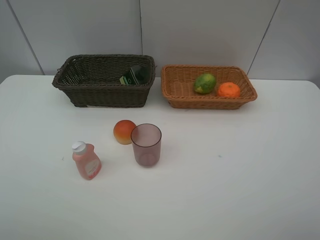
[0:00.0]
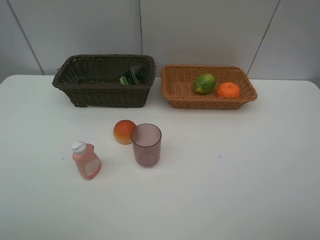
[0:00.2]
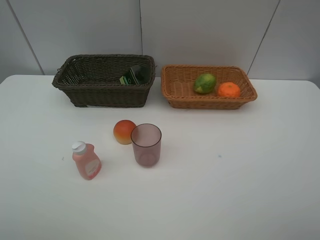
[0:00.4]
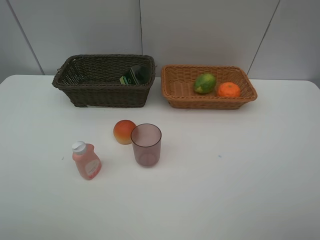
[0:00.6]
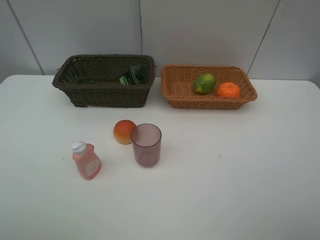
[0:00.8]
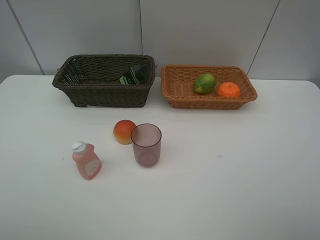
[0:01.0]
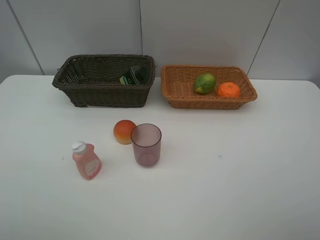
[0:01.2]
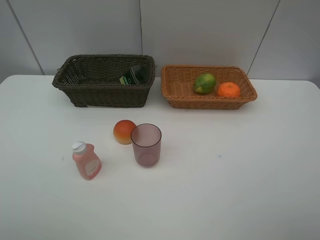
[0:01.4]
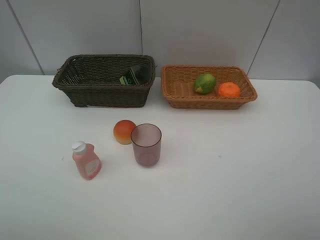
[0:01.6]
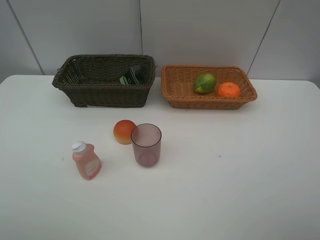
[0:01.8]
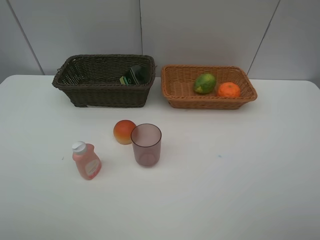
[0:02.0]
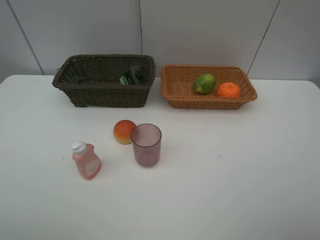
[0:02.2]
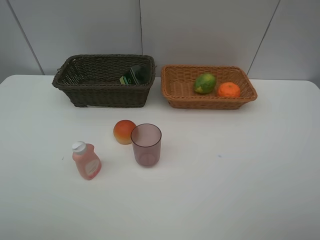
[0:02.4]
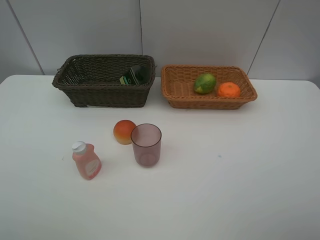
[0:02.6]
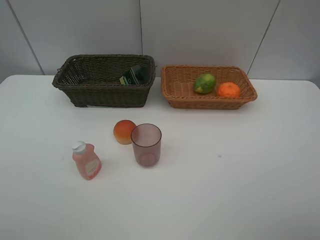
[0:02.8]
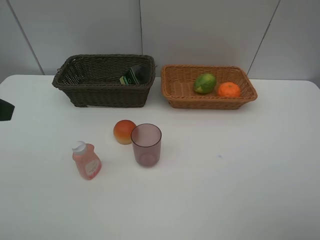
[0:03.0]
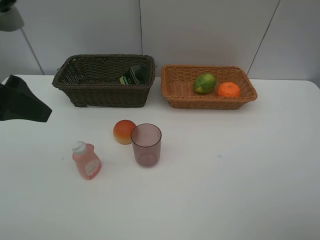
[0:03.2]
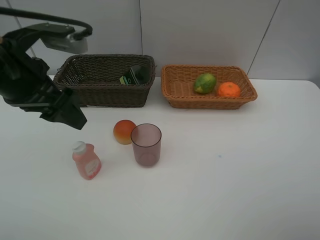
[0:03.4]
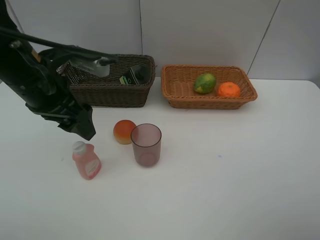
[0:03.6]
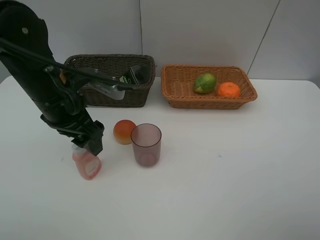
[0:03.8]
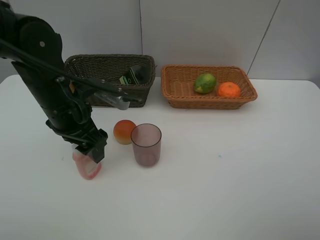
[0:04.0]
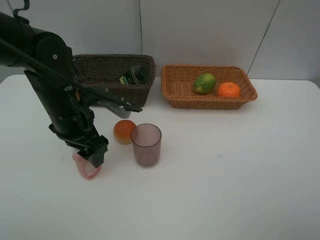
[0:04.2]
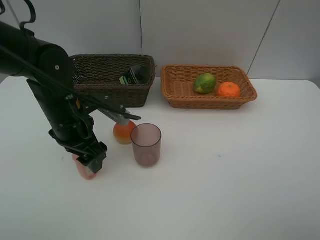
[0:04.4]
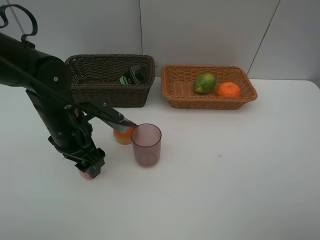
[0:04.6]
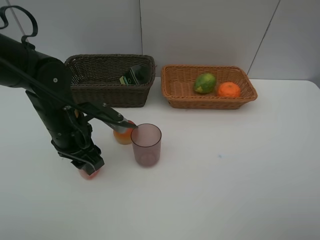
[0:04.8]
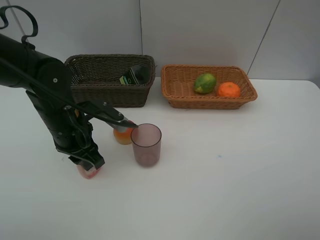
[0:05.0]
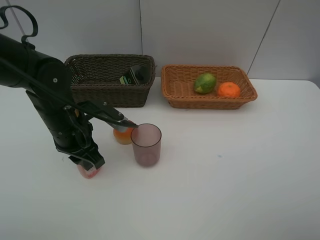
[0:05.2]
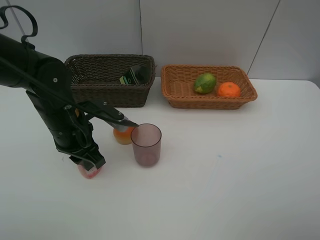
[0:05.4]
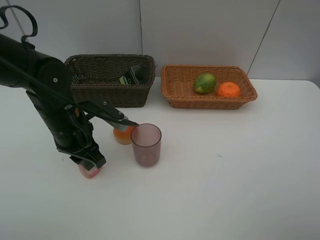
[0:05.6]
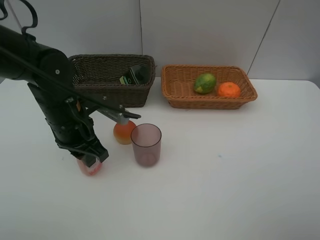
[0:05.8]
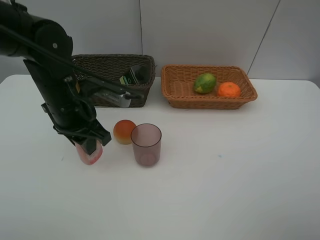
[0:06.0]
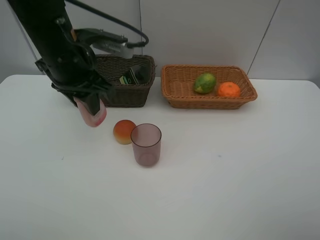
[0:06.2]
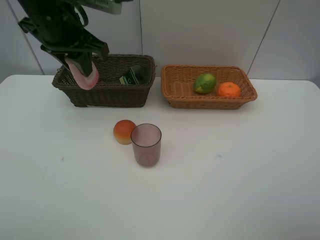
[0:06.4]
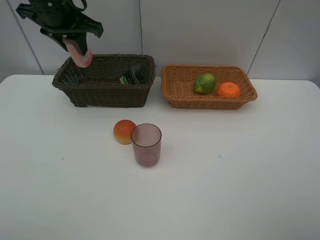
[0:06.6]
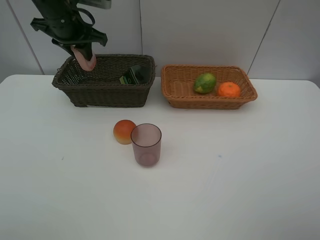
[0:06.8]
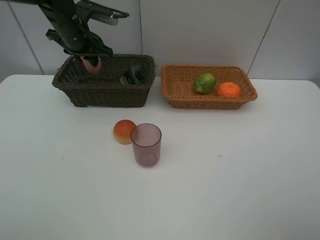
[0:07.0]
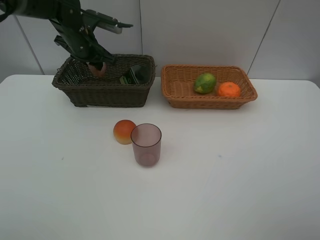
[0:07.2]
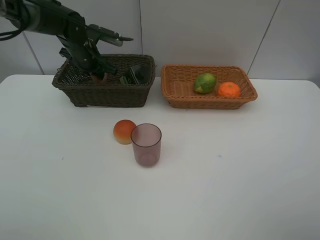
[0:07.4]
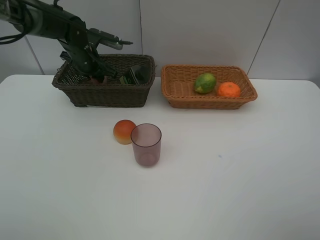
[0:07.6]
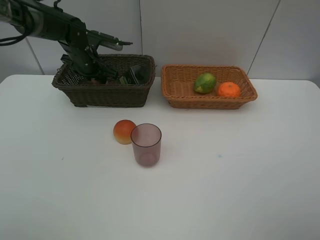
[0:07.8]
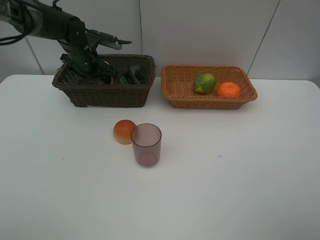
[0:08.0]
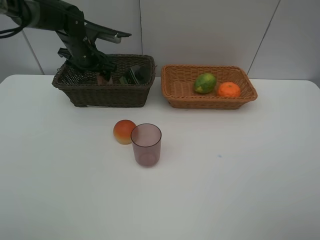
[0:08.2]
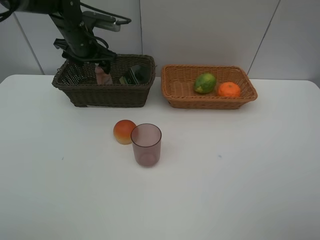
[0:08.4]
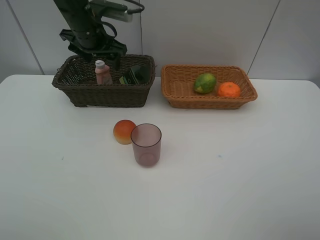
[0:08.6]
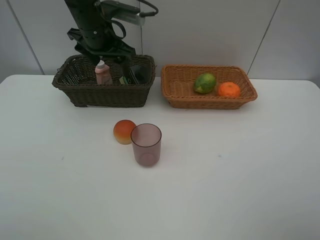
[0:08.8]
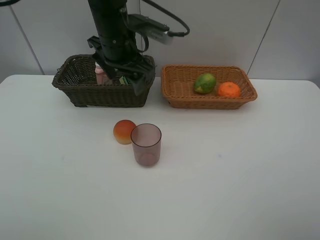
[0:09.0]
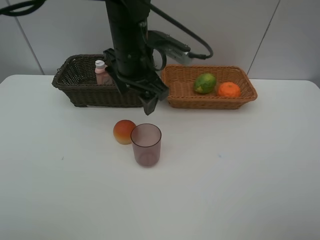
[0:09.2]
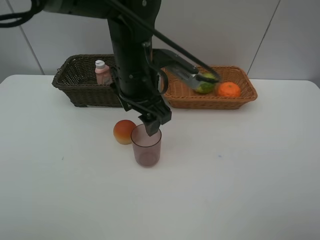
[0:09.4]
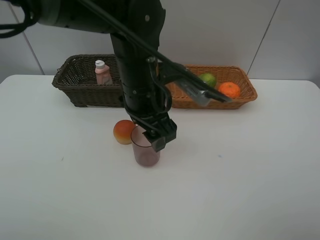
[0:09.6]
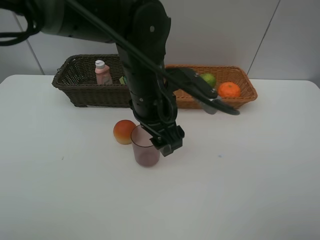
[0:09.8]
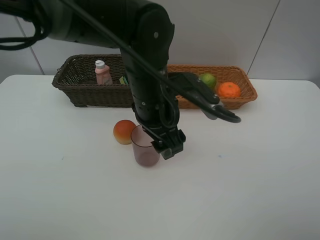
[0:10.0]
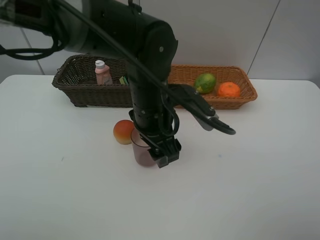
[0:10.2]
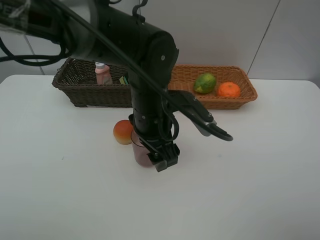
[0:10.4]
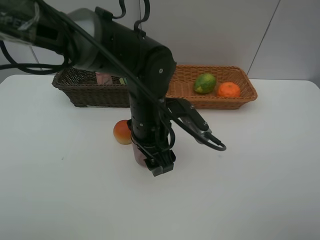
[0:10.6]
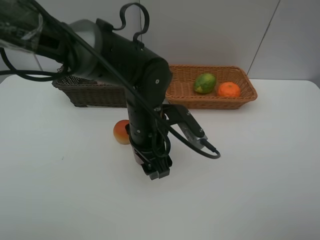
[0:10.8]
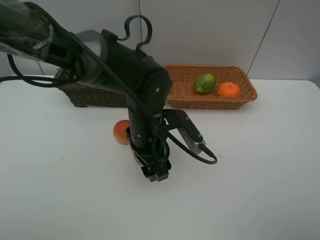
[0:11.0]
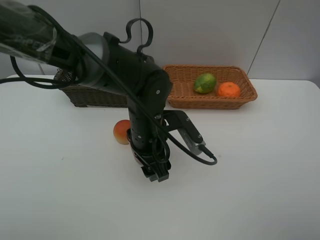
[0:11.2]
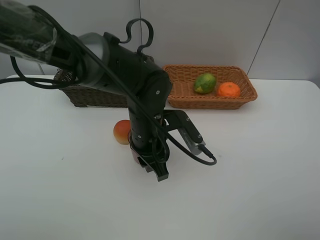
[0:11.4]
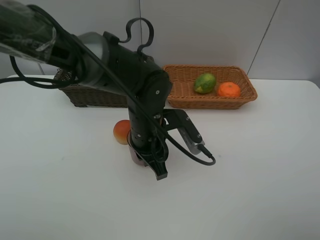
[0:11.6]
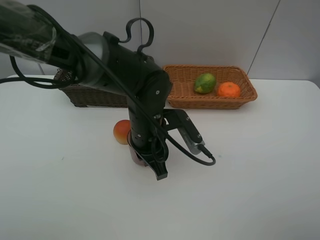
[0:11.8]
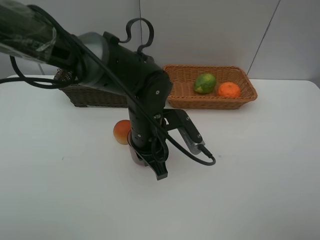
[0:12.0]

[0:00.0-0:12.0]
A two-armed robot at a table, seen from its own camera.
Task of the whole recording: place multiple objects separately in different baskets.
0:03.0 to 0:04.4: The left gripper moves downward, to the right and forward, about 25 cm.
0:04.4 to 0:06.0: The left gripper closes up.
0:06.0 to 0:07.6: The left gripper travels forward by some 20 cm.
0:07.6 to 0:09.0: The left gripper heads to the right, backward and upward, covering approximately 20 cm, and opens.
0:09.0 to 0:10.4: The left gripper goes approximately 15 cm backward, downward and to the right.
0:10.4 to 0:12.0: The left gripper closes.

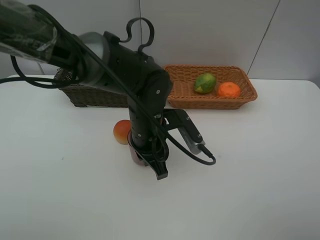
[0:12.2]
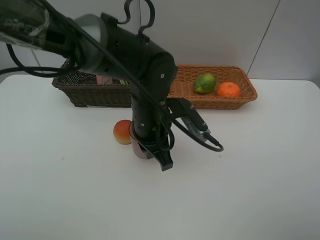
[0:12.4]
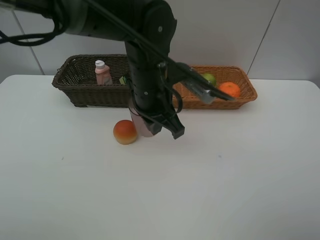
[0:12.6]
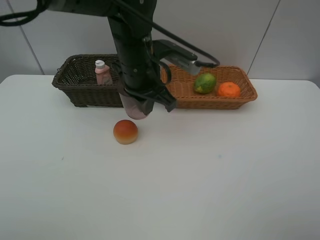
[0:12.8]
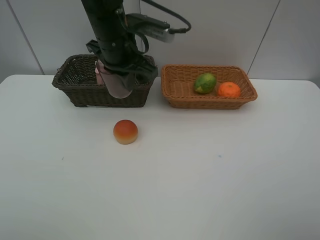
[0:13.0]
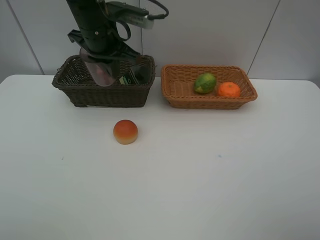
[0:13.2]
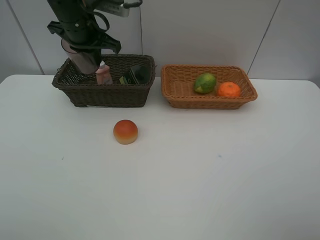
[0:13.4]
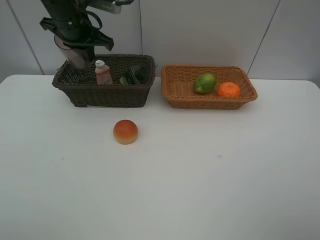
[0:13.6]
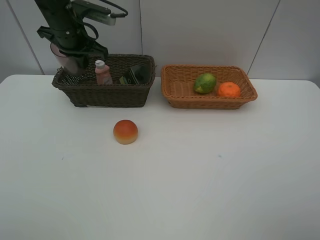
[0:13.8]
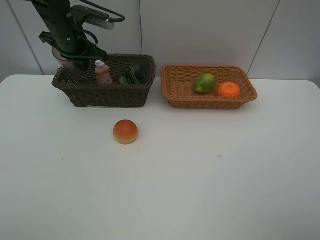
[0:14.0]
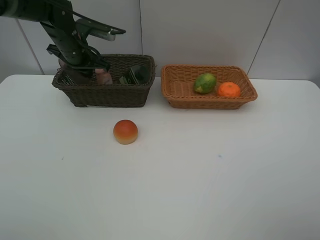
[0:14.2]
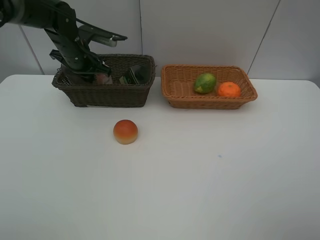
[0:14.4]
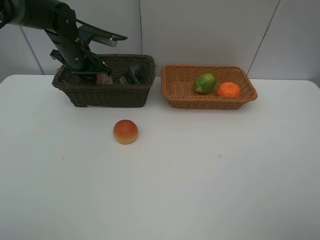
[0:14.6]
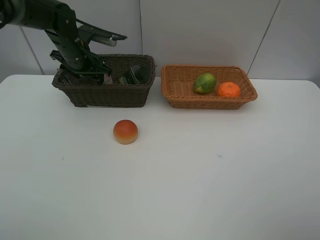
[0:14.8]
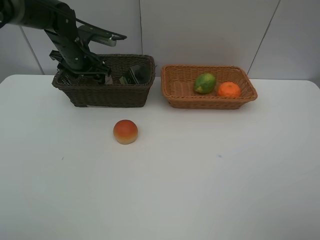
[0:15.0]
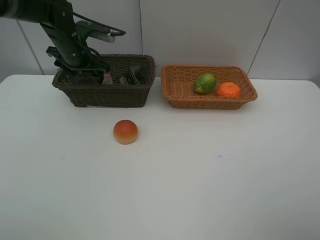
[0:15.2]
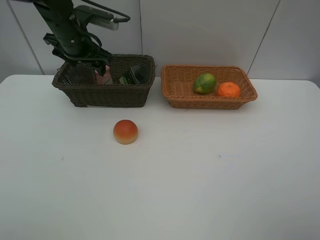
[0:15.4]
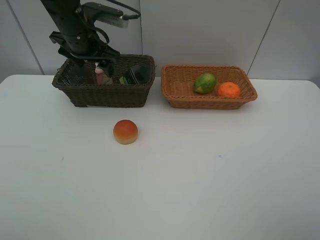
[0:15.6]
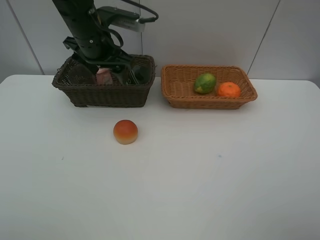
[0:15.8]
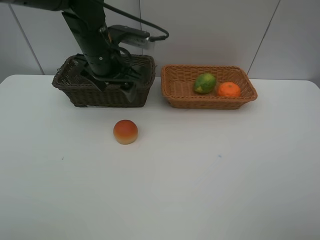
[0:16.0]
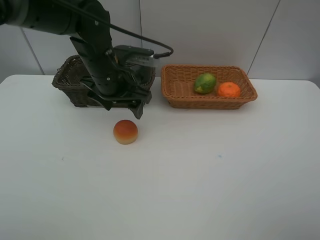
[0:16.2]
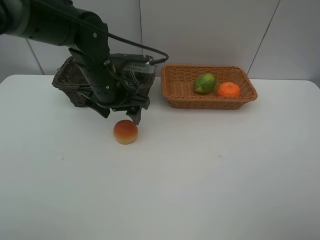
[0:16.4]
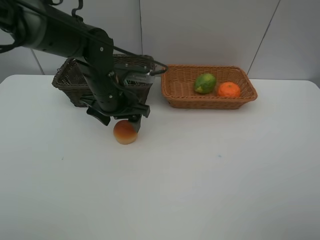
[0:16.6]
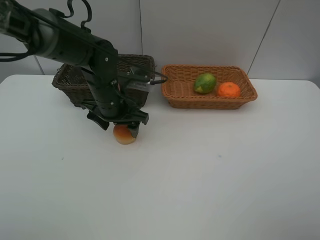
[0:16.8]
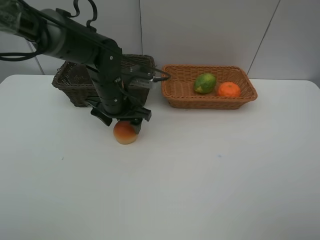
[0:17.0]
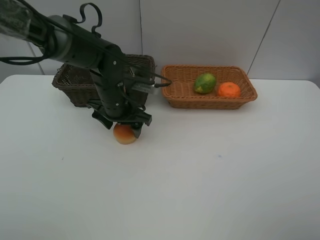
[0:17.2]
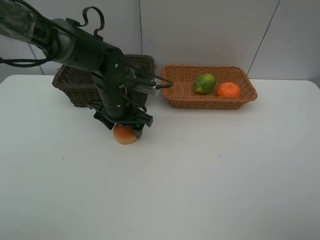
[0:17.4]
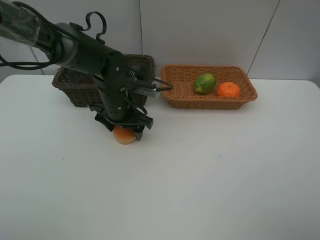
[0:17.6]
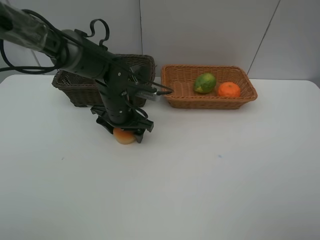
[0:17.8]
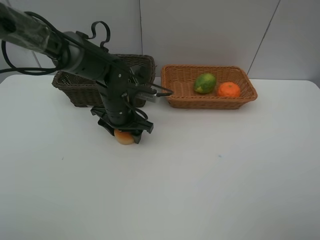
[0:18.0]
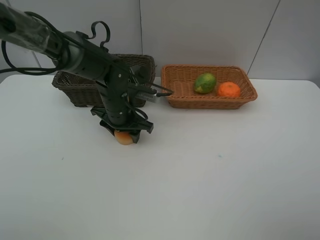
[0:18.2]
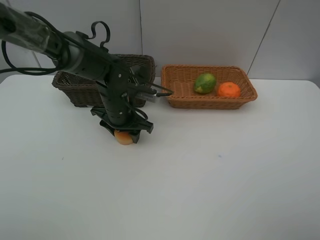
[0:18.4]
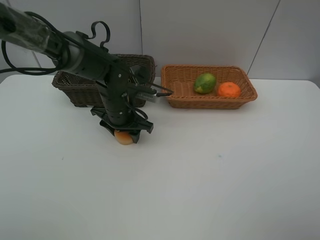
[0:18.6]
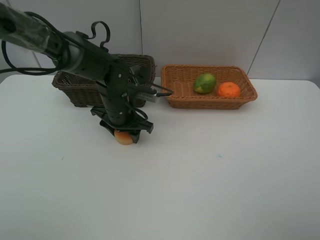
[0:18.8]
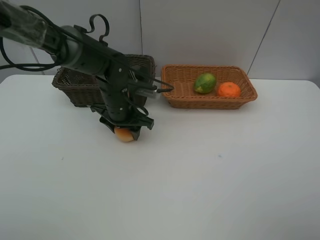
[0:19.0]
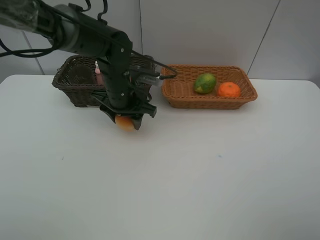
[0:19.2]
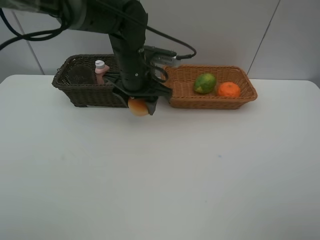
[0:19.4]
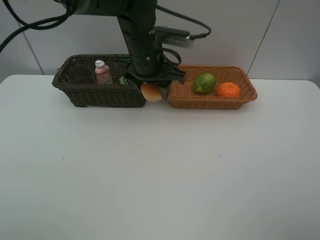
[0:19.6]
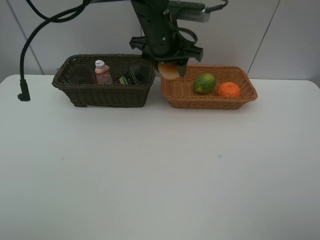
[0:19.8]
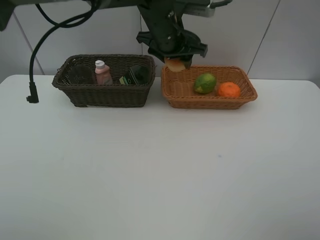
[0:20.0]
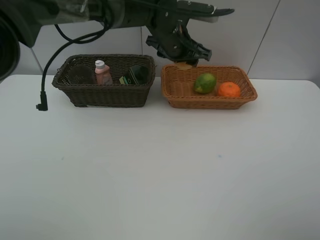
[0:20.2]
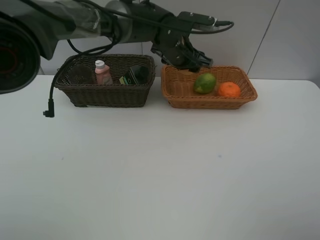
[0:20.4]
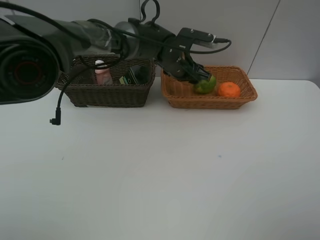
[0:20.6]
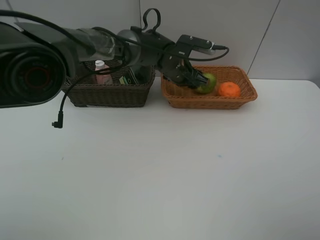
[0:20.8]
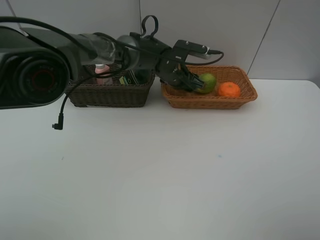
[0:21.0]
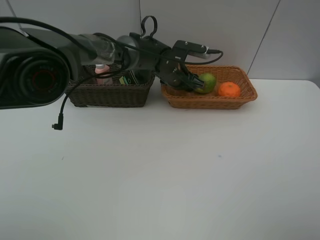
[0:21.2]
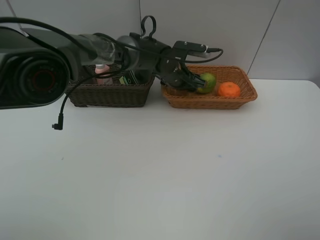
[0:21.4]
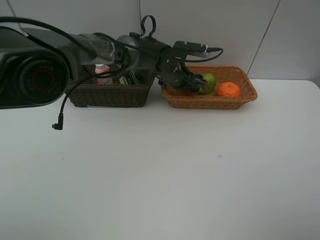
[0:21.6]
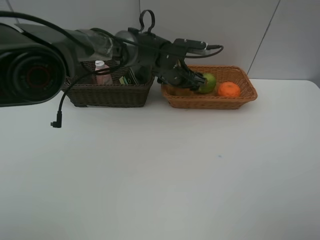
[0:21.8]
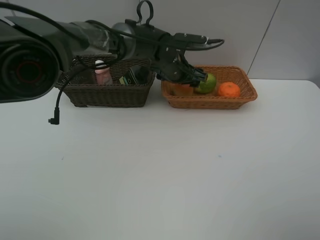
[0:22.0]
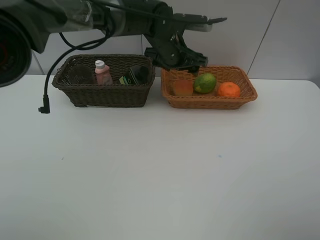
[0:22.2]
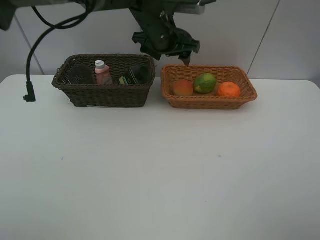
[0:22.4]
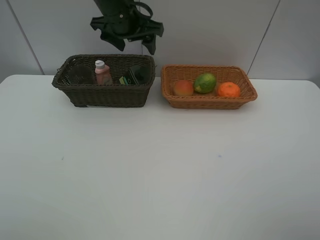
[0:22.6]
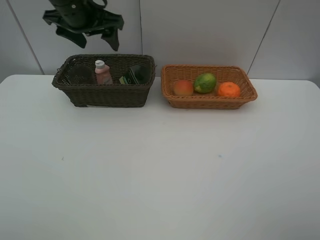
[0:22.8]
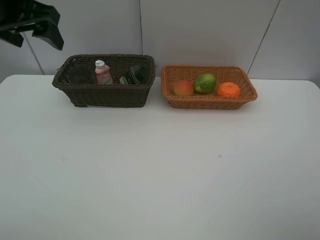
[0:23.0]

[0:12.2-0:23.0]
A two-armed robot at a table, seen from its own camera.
Task of the whole recording: place multiple objects separately in different baskets.
0:12.2 to 0:13.8: The left gripper shifts roughly 30 cm to the left, forward and upward.
0:13.8 to 0:15.2: The left gripper changes place by about 5 cm, and opens up.
0:15.2 to 0:16.8: The left gripper moves backward, to the right and downward, roughly 15 cm.
0:16.8 to 0:18.4: There are only small adjustments of the grippers.
0:18.4 to 0:20.0: The left gripper goes about 20 cm upward, to the right and forward.
0:20.0 to 0:21.4: The left gripper heads downward, covering about 10 cm.
0:21.4 to 0:23.0: The left gripper heads to the left, upward and backward, covering roughly 40 cm.
